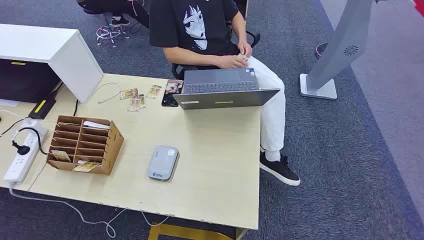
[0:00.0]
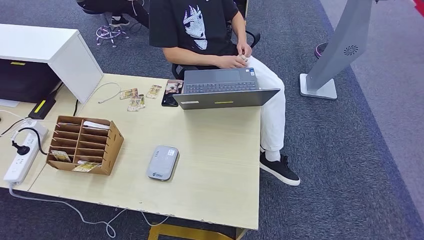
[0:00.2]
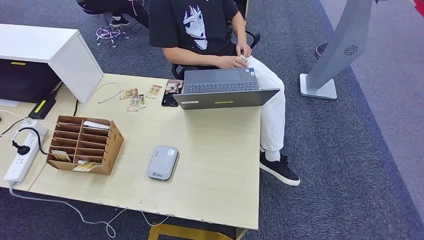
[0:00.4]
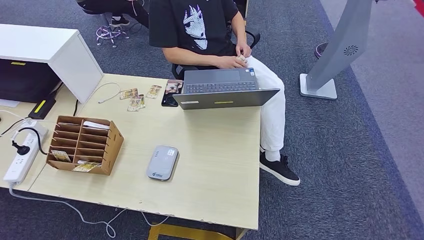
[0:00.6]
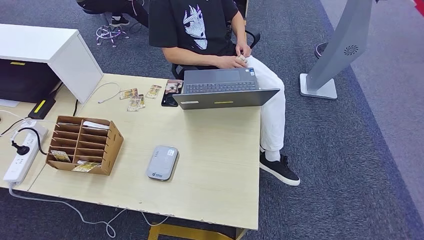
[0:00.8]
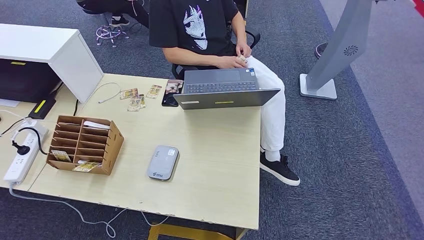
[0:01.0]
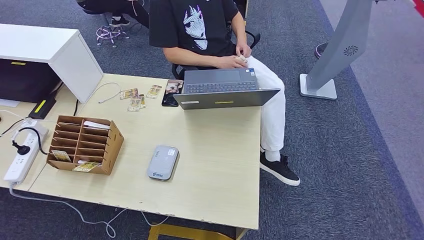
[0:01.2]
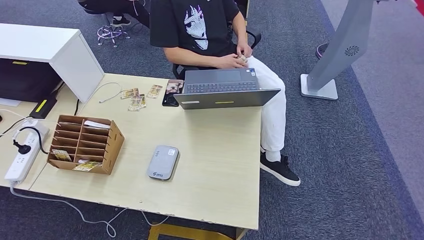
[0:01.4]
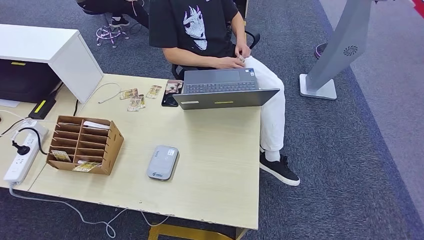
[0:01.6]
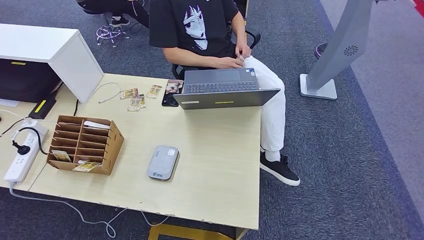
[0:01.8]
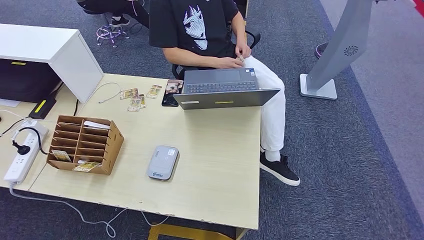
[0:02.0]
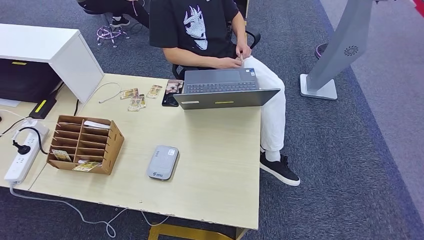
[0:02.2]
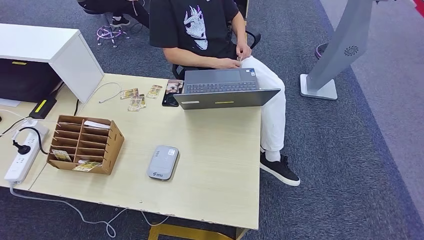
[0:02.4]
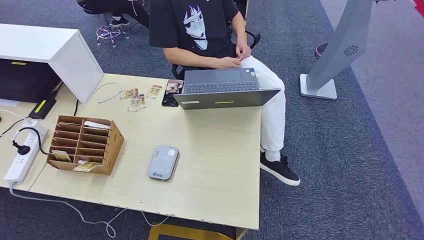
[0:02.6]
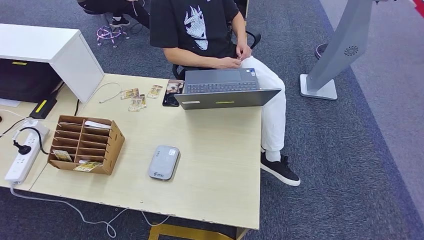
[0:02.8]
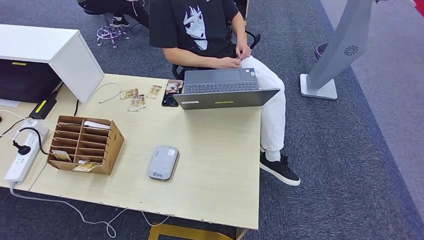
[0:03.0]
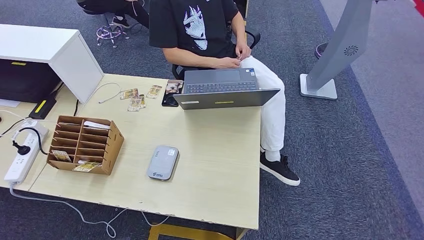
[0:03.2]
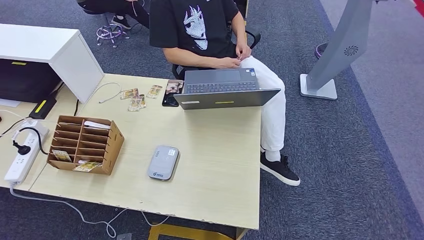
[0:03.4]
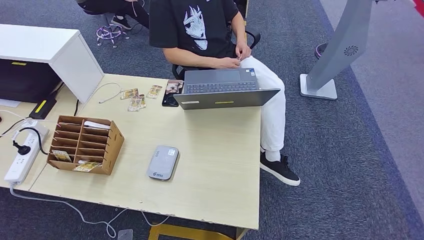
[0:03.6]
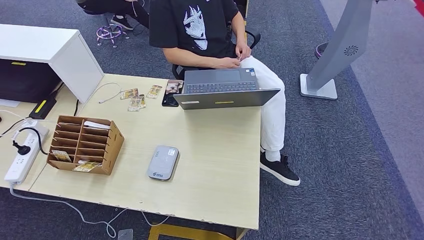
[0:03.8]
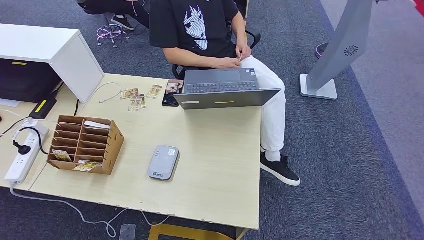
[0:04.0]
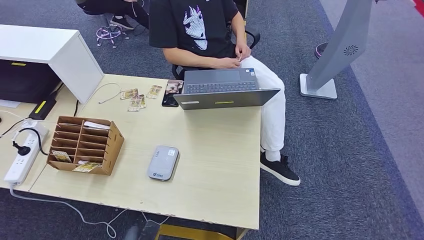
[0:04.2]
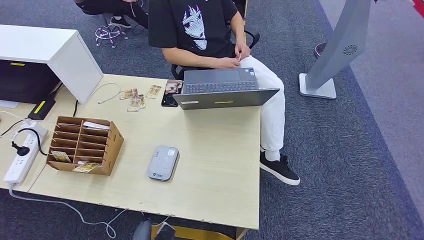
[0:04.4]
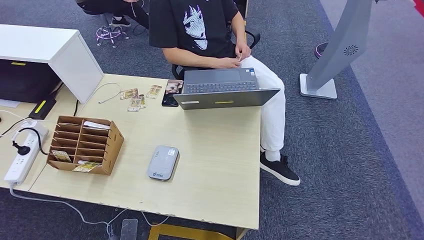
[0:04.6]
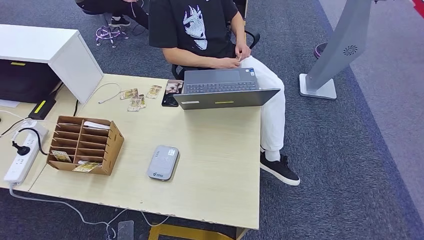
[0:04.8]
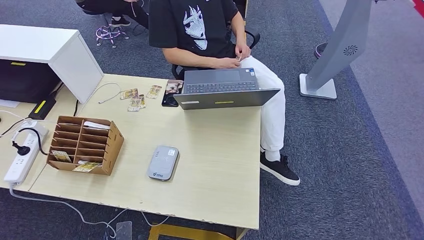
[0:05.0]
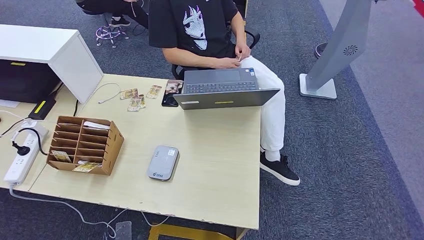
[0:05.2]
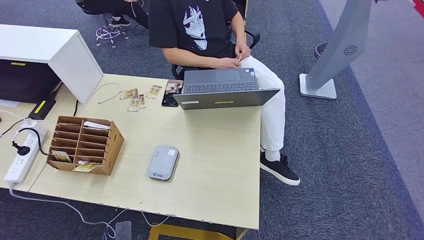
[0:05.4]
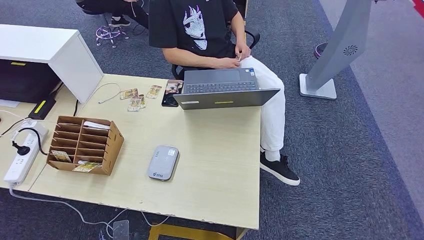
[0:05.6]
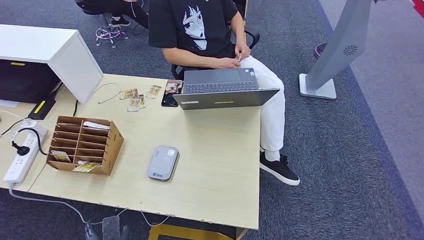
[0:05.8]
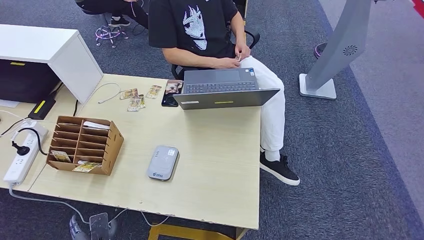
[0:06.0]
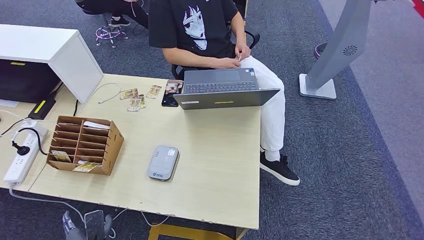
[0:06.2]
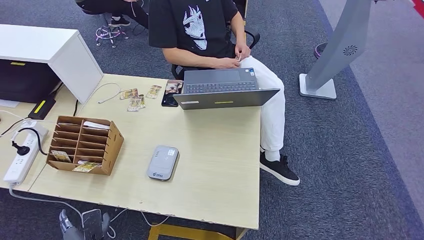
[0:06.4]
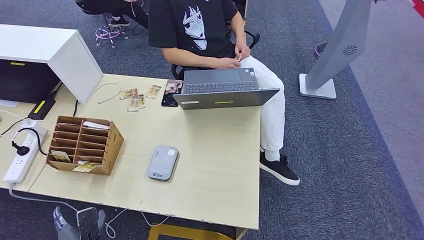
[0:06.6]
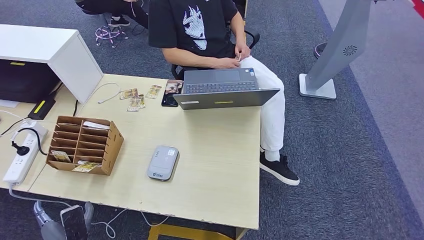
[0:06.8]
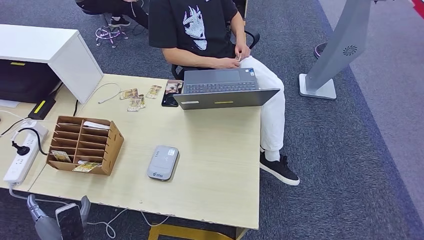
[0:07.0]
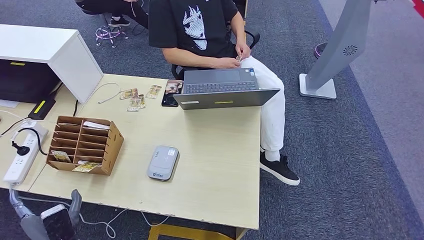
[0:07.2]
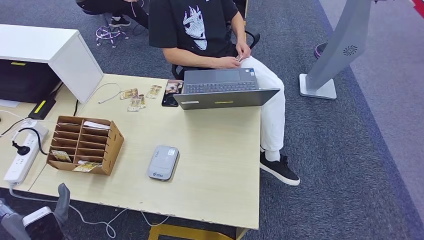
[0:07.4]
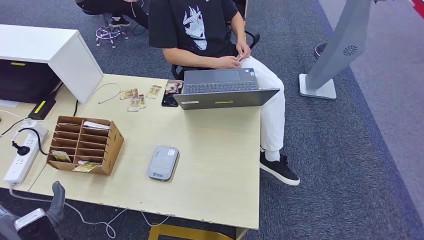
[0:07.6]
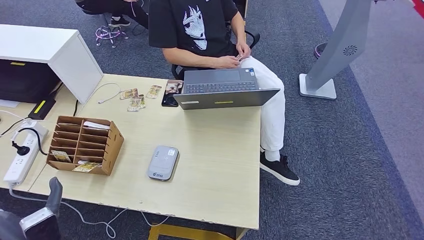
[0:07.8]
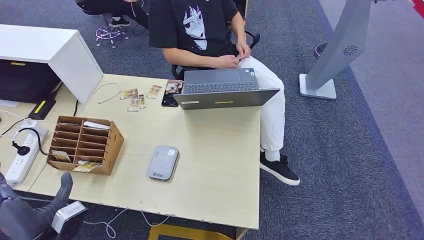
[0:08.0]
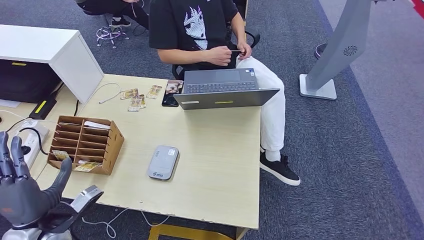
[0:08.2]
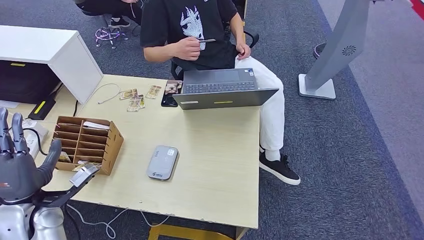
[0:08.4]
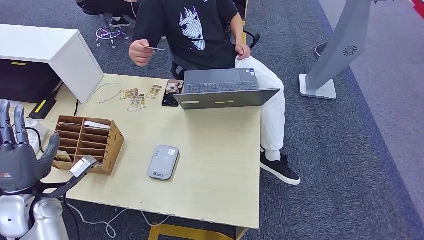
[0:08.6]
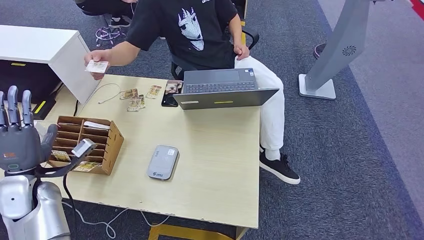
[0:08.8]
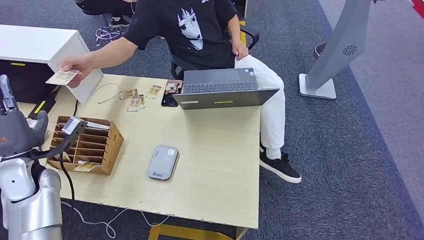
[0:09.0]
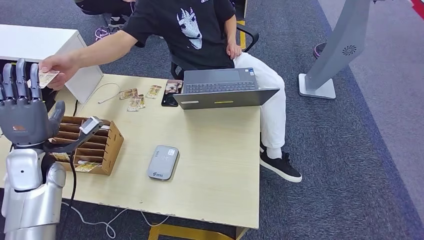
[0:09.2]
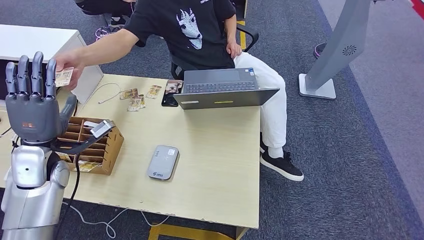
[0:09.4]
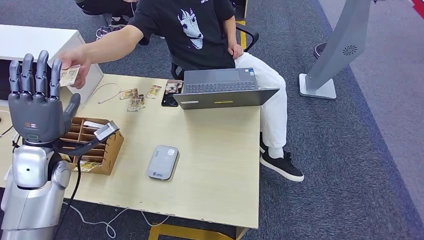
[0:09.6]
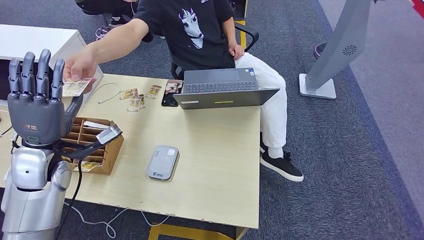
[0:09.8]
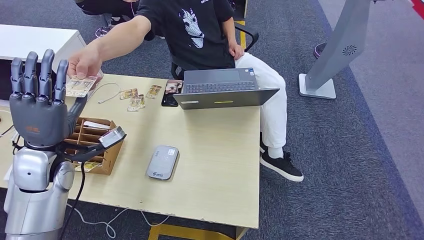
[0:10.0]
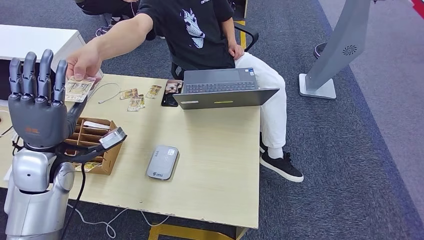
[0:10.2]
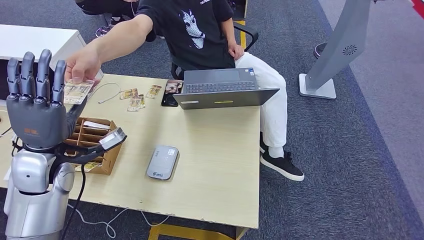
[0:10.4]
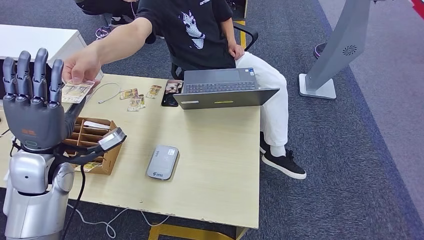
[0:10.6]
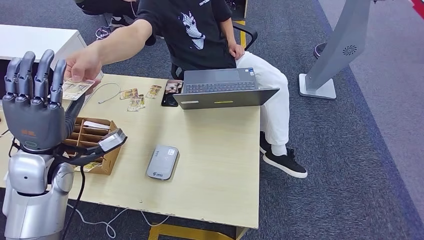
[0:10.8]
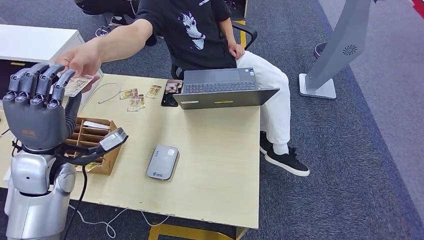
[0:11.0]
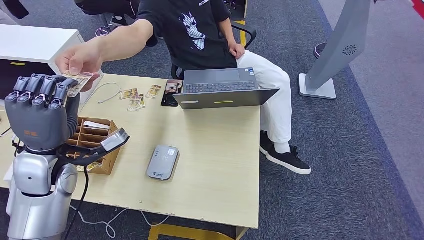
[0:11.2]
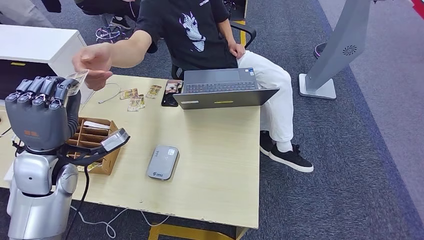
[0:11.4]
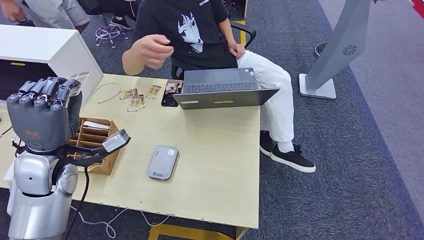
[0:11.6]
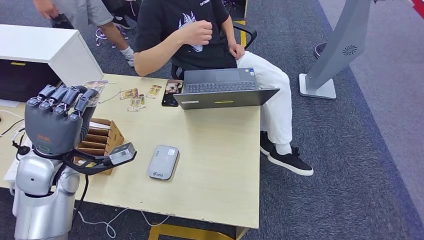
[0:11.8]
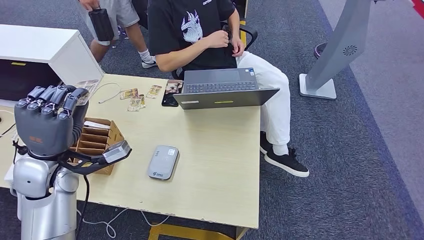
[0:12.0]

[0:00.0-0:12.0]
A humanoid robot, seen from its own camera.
0:01.6 to 0:03.0: The left hand goes about 10 cm to the right.
0:03.0 to 0:04.4: The left hand shifts approximately 5 cm forward.
0:04.4 to 0:06.0: The left hand moves to the left, approximately 5 cm.
0:06.0 to 0:07.6: The left hand shifts about 15 cm upward.
0:07.6 to 0:09.0: The left hand is displaced forward, upward and to the left by some 20 cm.
0:09.0 to 0:10.4: The left hand goes about 10 cm to the right and upward.

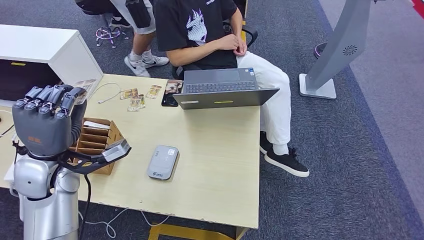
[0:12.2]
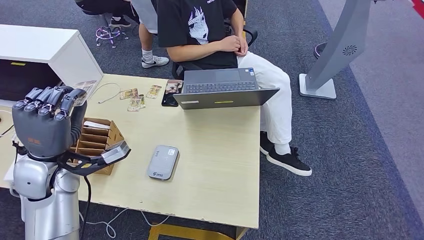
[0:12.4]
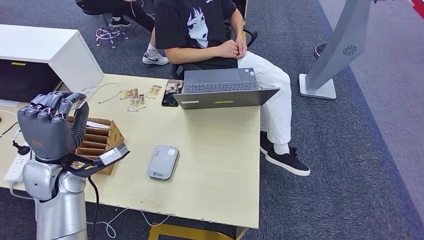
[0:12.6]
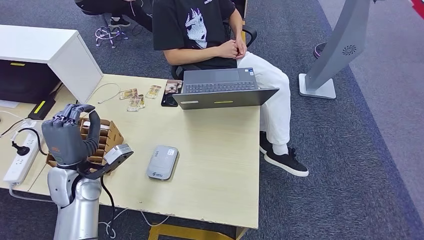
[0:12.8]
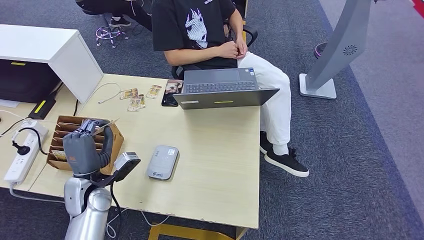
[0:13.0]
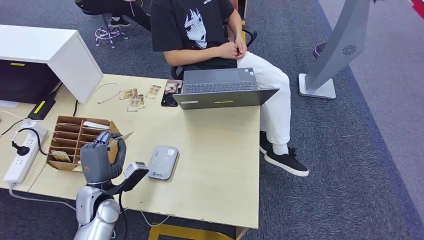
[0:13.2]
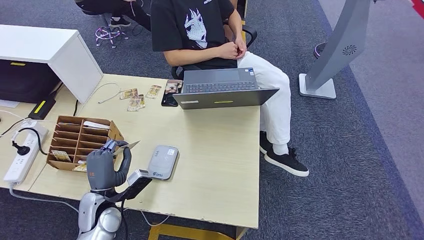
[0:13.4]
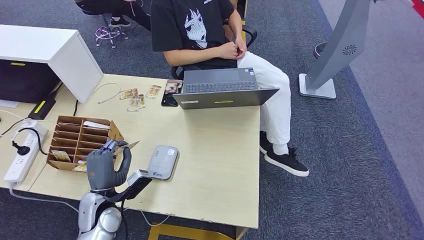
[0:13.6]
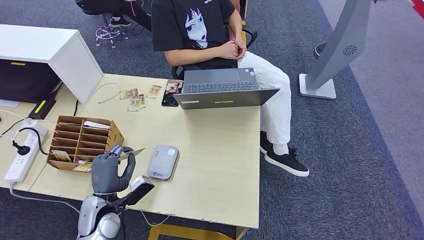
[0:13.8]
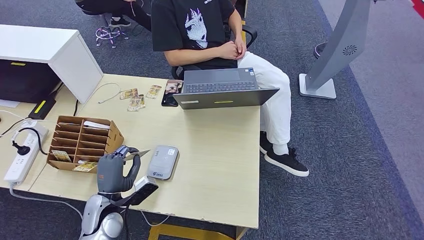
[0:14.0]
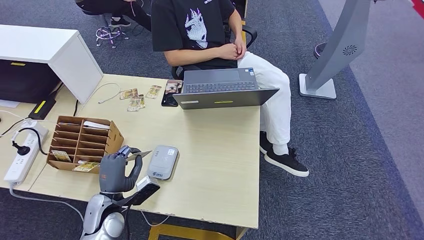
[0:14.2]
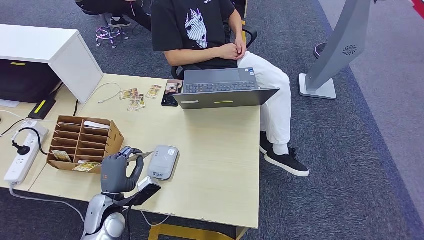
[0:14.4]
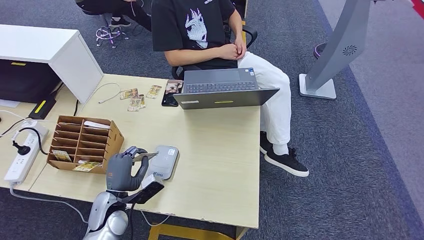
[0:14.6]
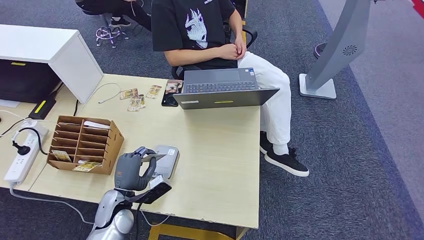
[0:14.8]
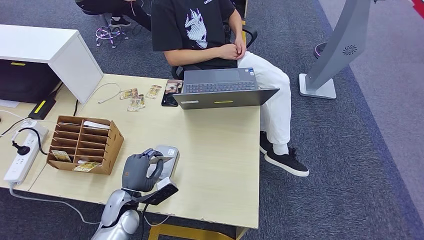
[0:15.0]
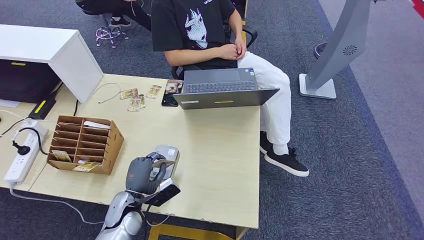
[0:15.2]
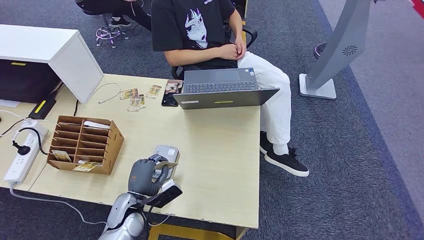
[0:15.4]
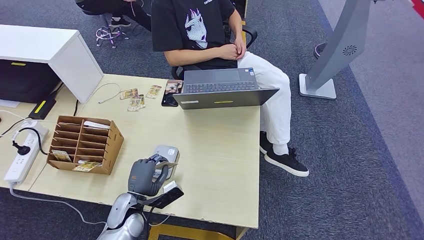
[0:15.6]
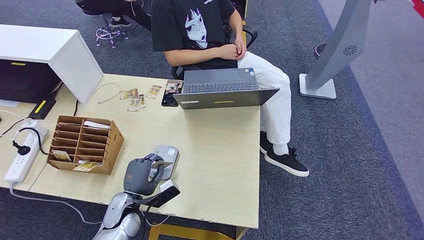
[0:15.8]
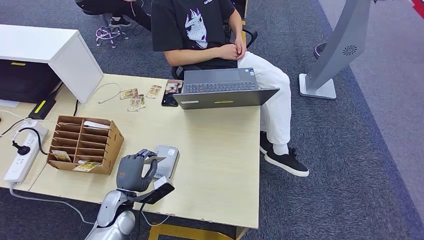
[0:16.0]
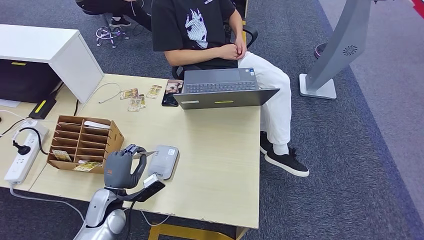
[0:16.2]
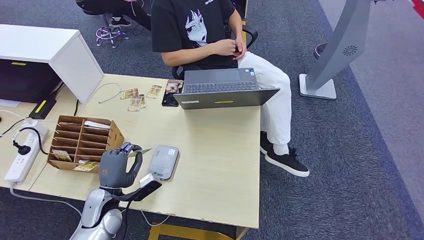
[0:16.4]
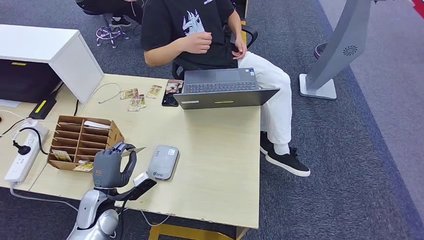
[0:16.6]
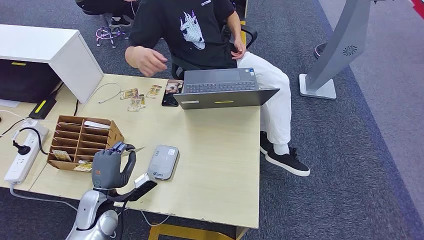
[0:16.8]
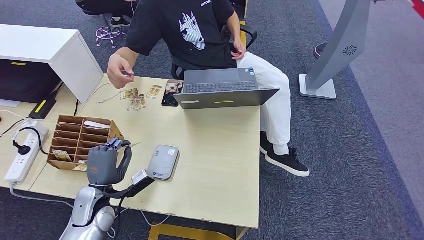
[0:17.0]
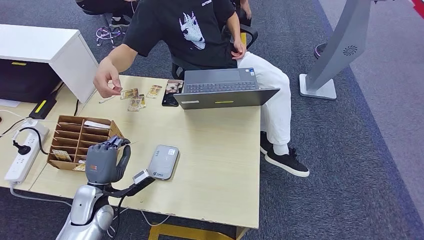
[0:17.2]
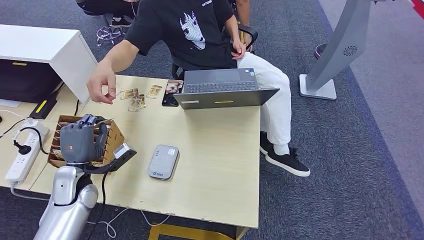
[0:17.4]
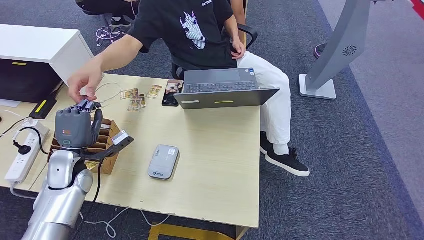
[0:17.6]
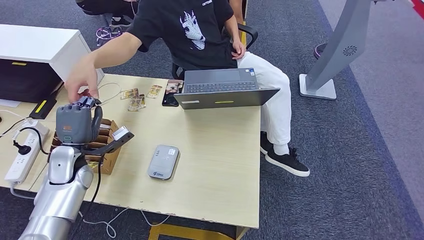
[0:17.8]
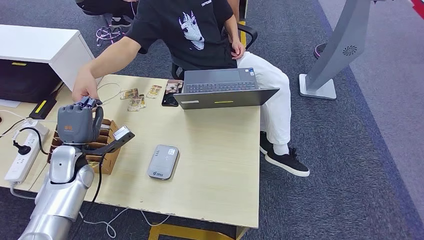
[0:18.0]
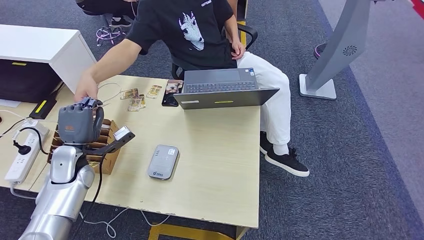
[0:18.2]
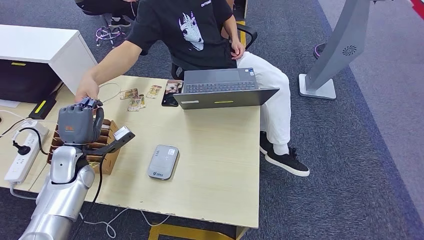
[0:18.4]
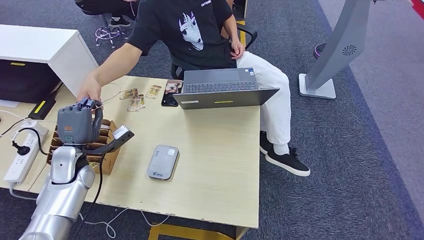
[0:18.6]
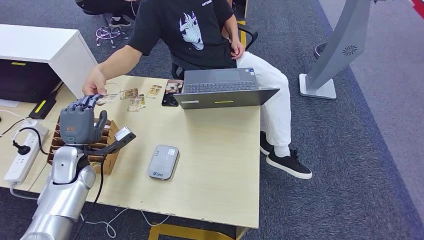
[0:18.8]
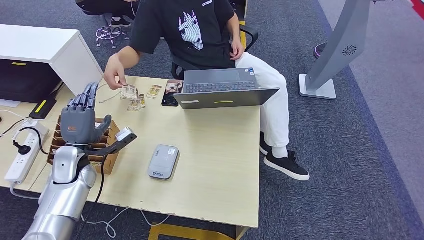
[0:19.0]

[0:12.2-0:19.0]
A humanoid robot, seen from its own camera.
Step, 0:12.4 to 0:15.6: Place the ID card on the card reader.
0:12.2 to 0:13.6: The left hand shifts about 20 cm downward.
0:13.6 to 0:15.0: The left hand shifts by roughly 5 cm.
0:15.0 to 0:16.2: The hands stay close to where they were, moving slightly.
0:16.2 to 0:17.6: The left hand goes approximately 15 cm upward, to the left and forward.
0:17.6 to 0:19.0: The hands stay close to where they were, moving slightly.
